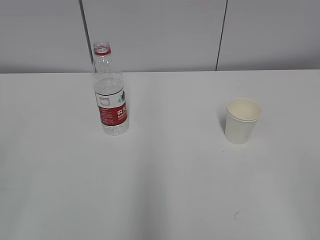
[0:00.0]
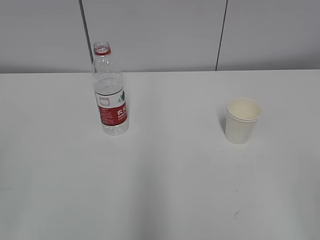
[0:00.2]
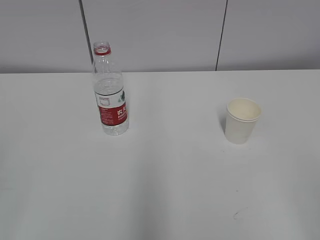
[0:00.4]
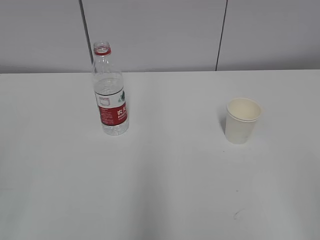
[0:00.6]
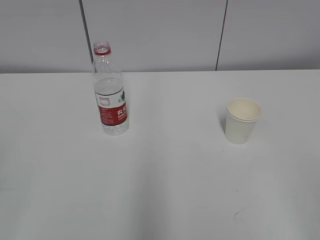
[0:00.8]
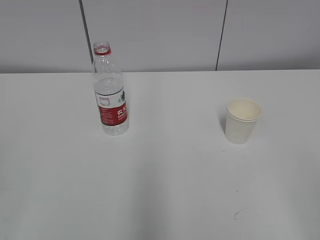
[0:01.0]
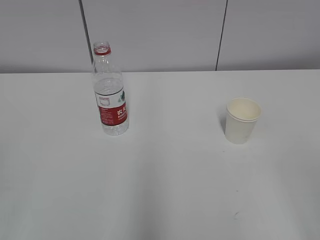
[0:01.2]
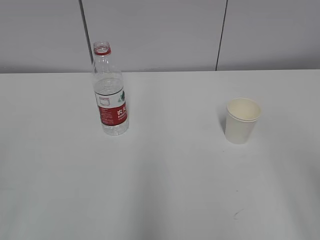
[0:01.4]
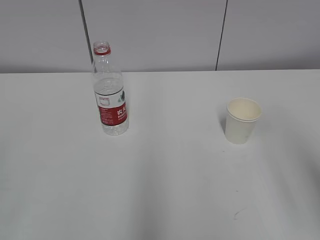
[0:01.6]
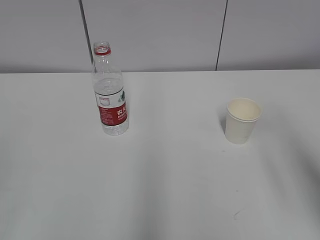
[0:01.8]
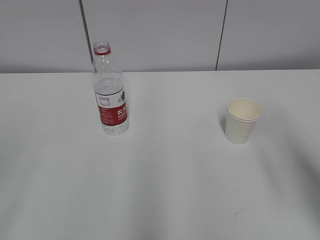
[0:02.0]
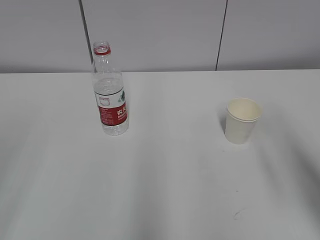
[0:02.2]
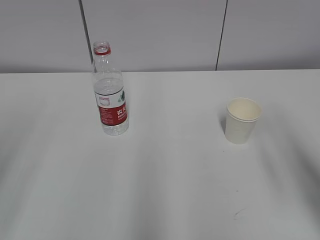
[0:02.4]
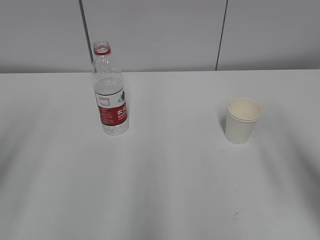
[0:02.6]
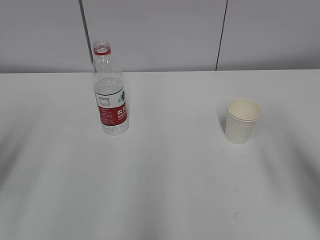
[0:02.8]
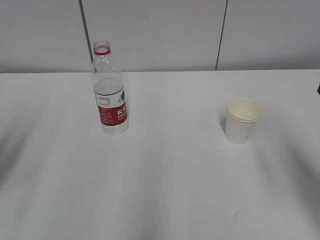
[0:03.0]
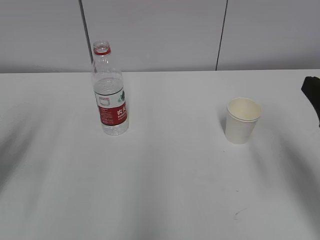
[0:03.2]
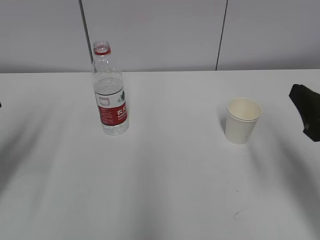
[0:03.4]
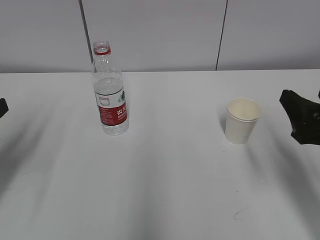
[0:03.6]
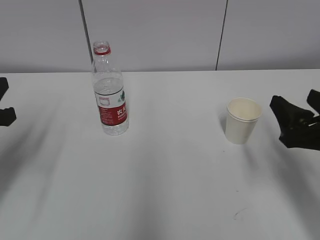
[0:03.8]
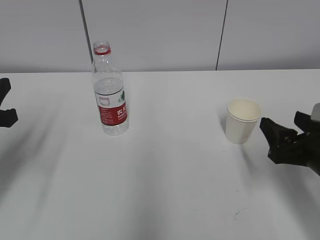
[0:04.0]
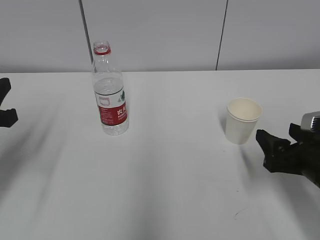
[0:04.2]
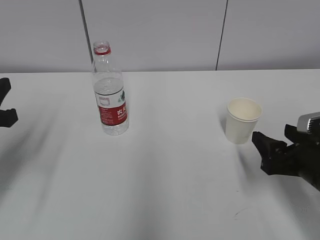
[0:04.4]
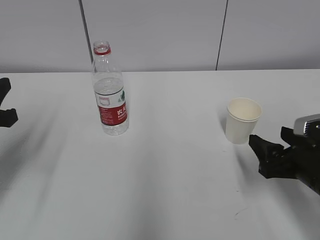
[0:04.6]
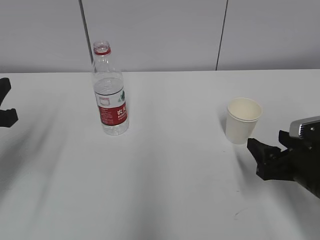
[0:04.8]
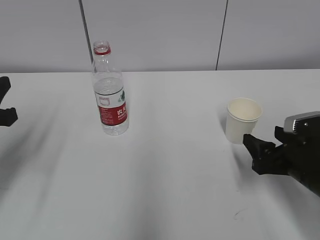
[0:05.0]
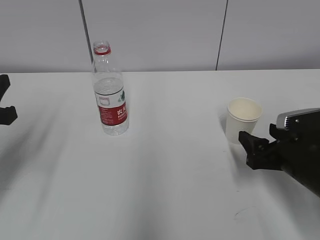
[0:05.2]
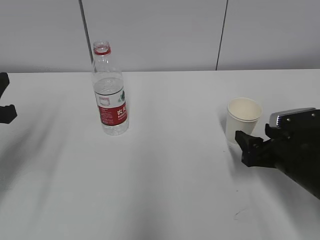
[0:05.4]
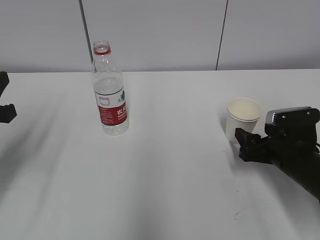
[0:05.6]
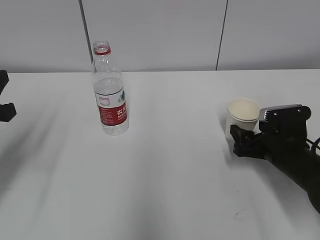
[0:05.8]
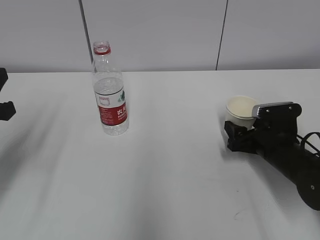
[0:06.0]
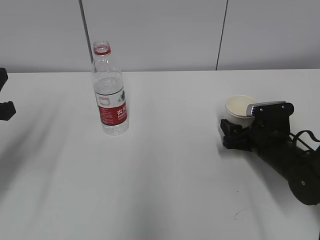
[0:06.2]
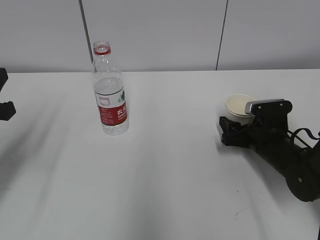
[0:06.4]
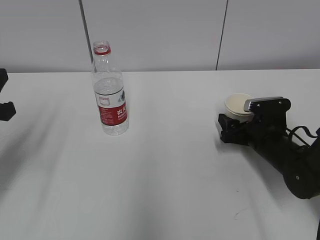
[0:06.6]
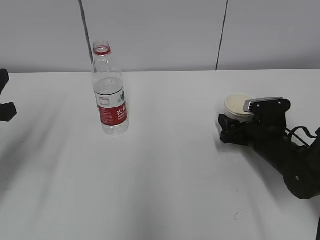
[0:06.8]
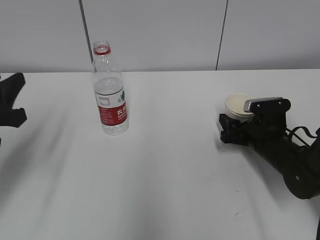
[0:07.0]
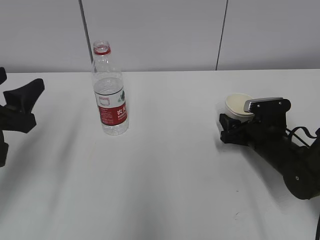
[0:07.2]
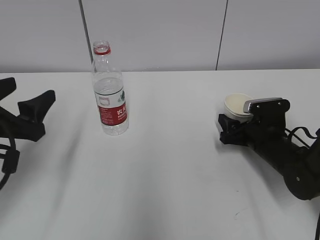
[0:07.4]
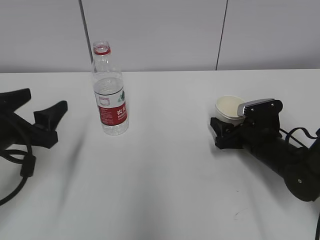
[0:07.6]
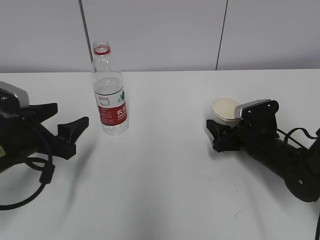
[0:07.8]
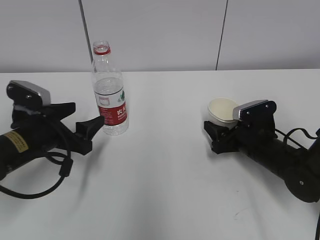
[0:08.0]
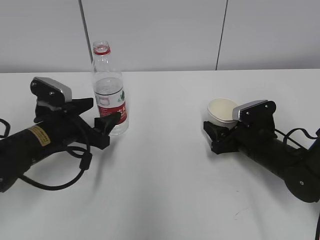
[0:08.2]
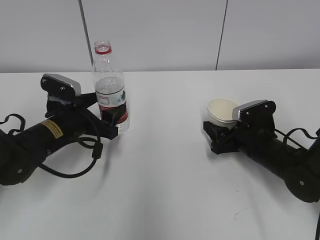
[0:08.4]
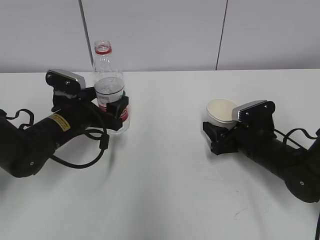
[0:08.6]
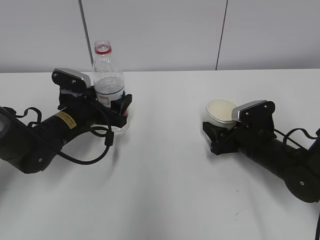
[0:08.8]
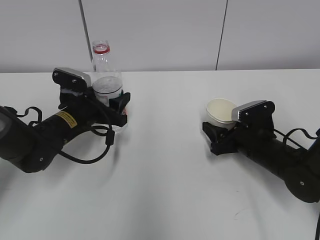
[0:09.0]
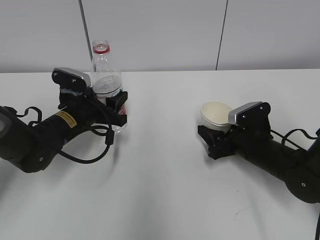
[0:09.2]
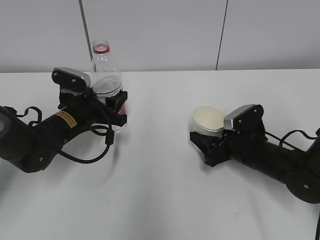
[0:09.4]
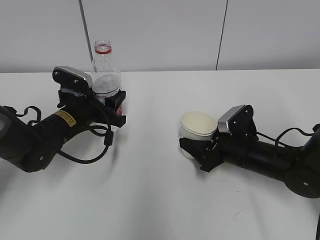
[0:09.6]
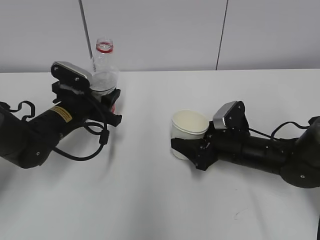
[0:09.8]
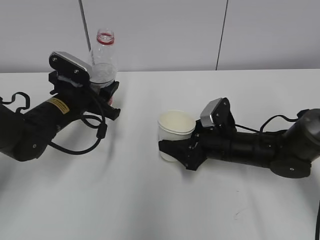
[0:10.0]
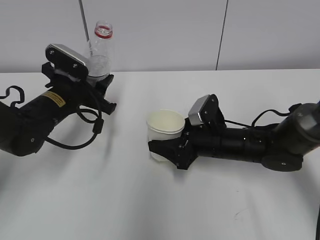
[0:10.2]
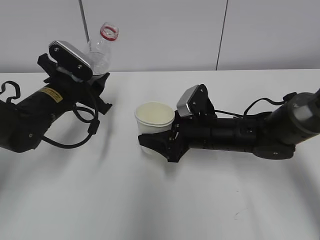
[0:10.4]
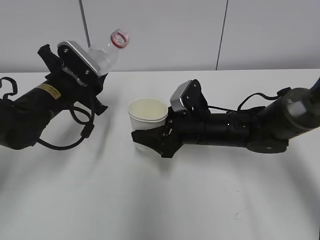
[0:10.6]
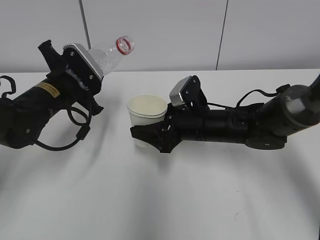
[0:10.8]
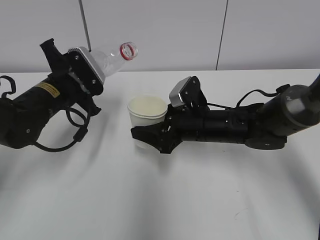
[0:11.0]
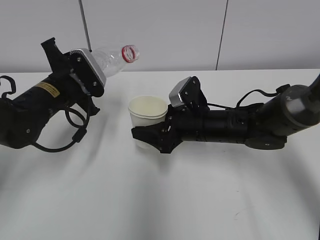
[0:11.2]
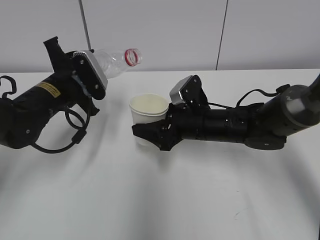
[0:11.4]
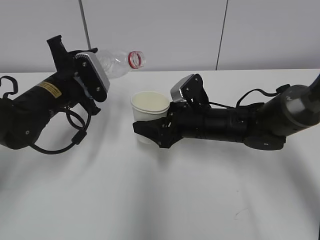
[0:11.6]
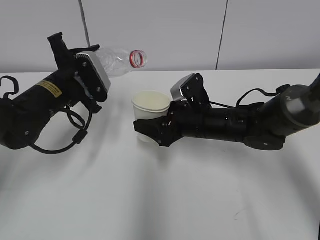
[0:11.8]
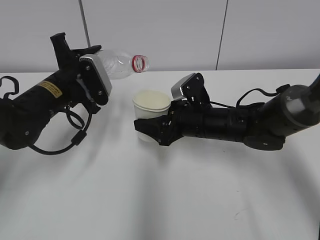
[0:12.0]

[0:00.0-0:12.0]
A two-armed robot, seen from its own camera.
Step, 0:00.0 to 0:07.8: Grab the water bottle with the left hand.
Step, 0:08.0 to 0:10.8: Lift the paper cup with the right hand.
0:01.6 to 0:03.0: The right gripper goes some 10 cm forward and downward. Meanwhile the left gripper shifts approximately 20 cm forward.
0:03.0 to 0:04.4: The left gripper goes some 10 cm downward and forward, while the right gripper goes roughly 15 cm downward and forward.
0:04.4 to 0:06.0: The right gripper moves forward and downward, about 10 cm.
0:06.0 to 0:07.6: The left gripper shifts by some 5 cm, and opens its fingers.
0:07.6 to 0:09.0: The left gripper is displaced forward, to the right and downward by approximately 15 cm.
0:09.0 to 0:10.4: The right gripper travels to the left by about 10 cm. Meanwhile the left gripper heads upward, covering approximately 5 cm, and closes up.

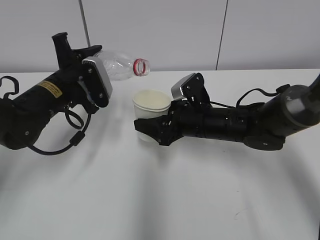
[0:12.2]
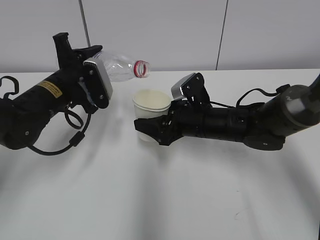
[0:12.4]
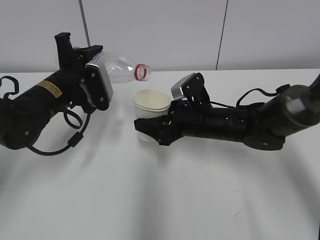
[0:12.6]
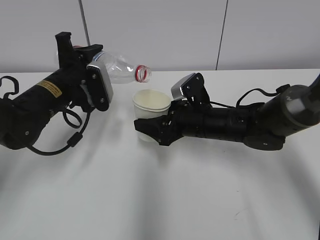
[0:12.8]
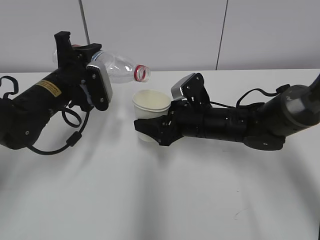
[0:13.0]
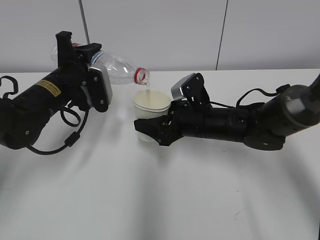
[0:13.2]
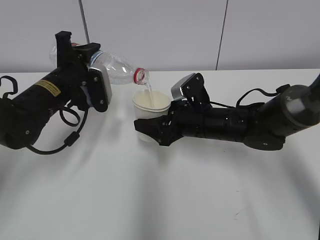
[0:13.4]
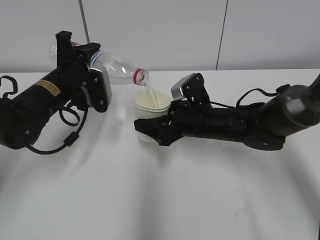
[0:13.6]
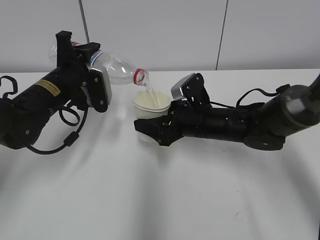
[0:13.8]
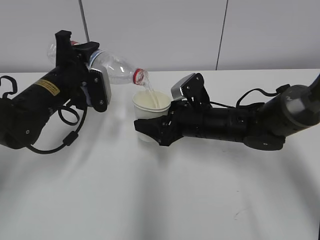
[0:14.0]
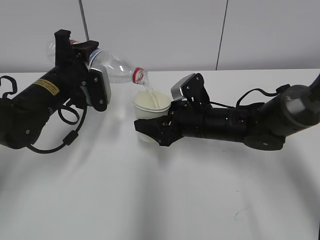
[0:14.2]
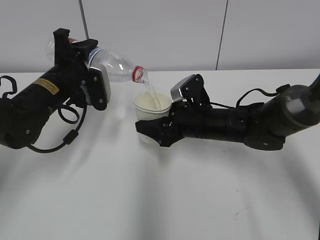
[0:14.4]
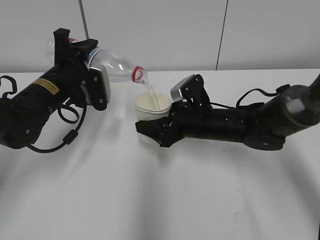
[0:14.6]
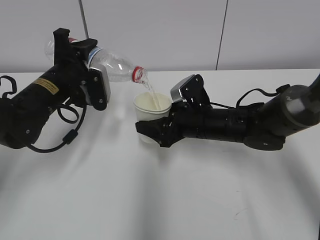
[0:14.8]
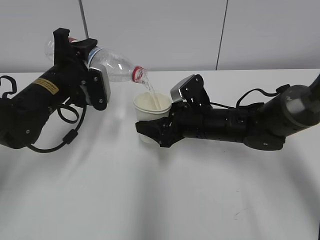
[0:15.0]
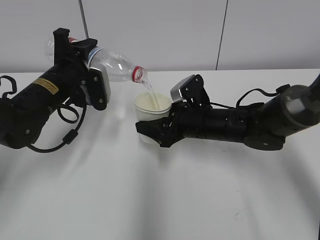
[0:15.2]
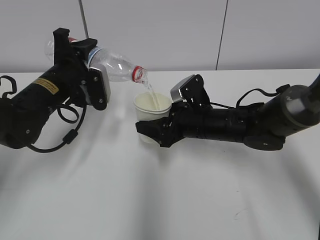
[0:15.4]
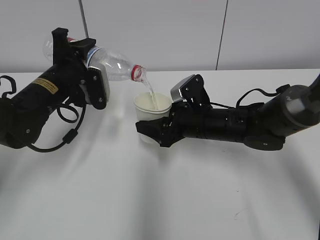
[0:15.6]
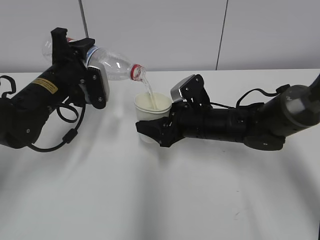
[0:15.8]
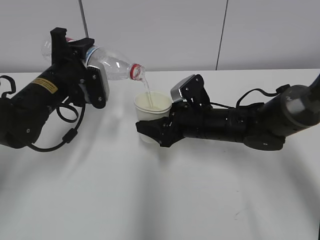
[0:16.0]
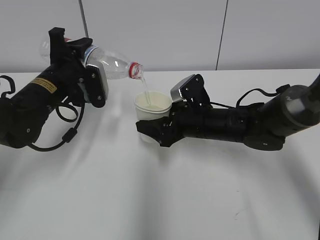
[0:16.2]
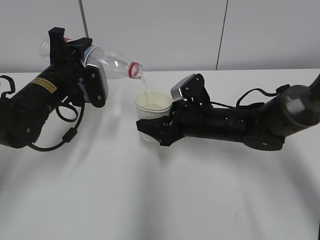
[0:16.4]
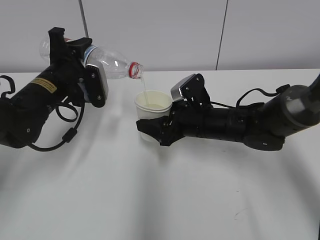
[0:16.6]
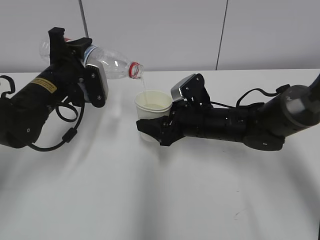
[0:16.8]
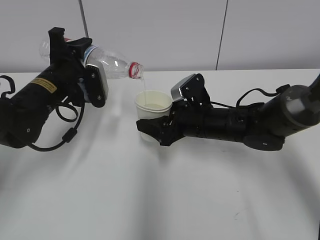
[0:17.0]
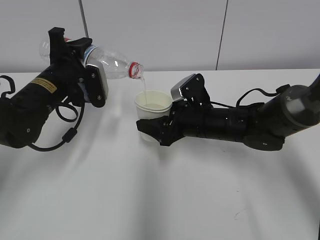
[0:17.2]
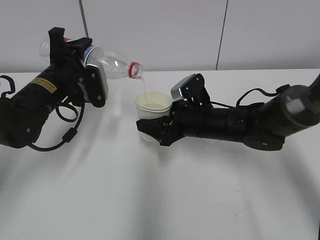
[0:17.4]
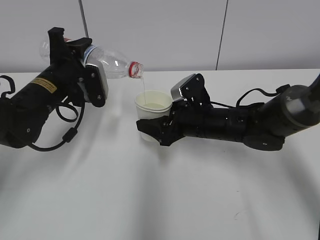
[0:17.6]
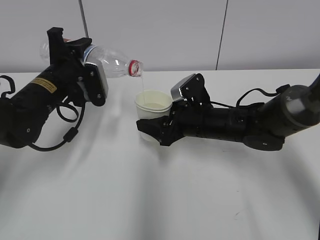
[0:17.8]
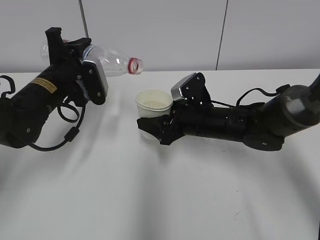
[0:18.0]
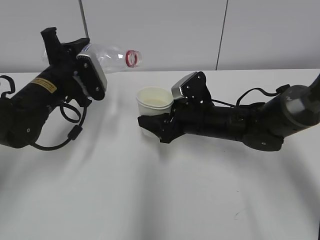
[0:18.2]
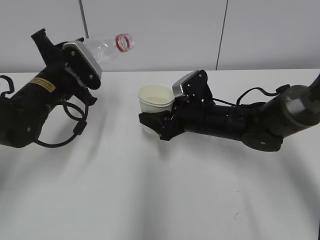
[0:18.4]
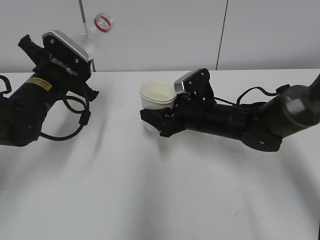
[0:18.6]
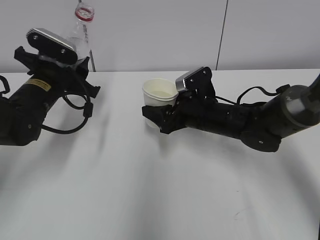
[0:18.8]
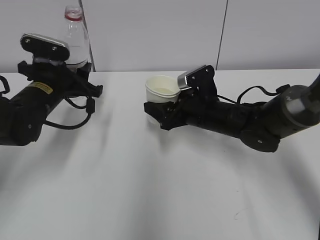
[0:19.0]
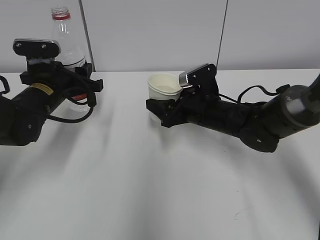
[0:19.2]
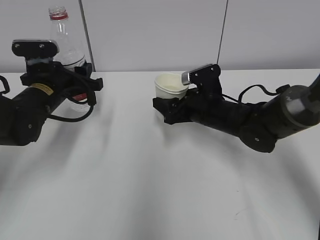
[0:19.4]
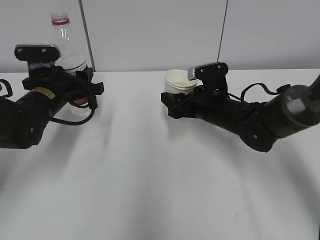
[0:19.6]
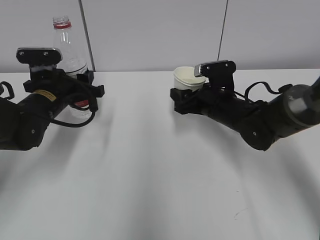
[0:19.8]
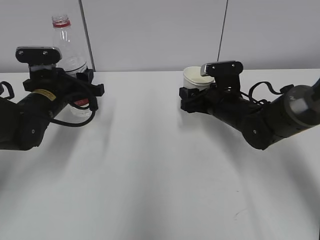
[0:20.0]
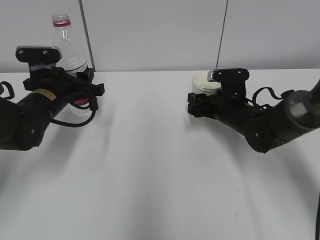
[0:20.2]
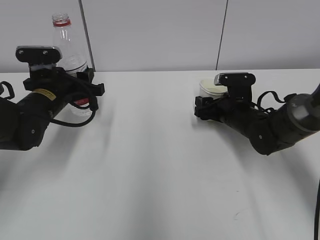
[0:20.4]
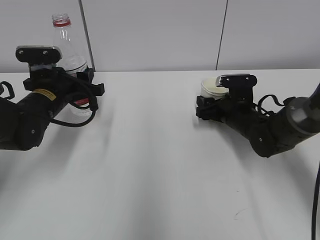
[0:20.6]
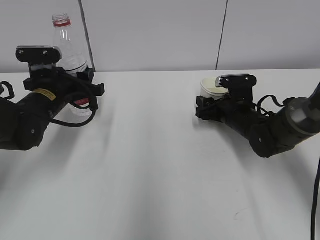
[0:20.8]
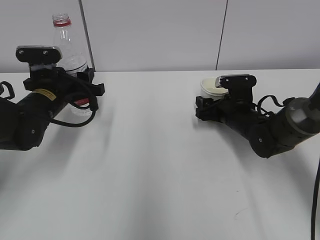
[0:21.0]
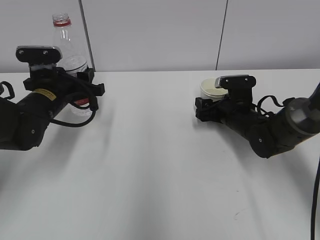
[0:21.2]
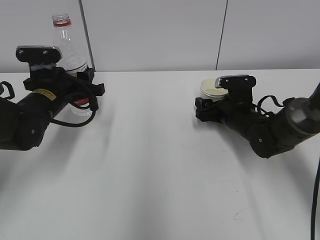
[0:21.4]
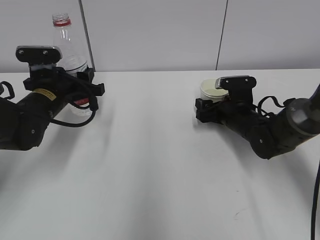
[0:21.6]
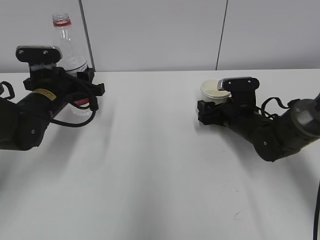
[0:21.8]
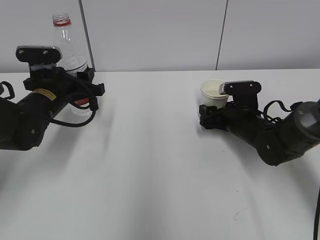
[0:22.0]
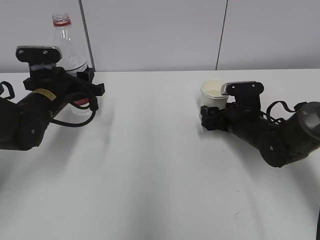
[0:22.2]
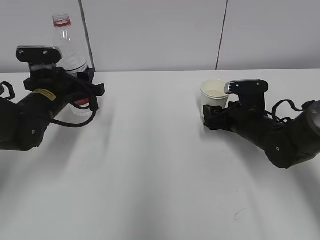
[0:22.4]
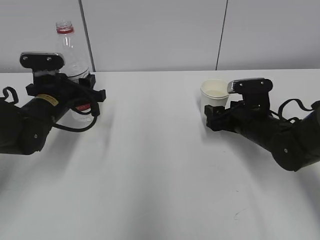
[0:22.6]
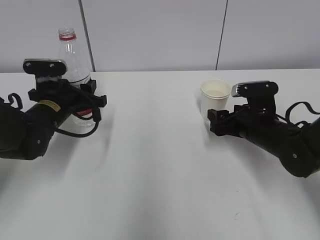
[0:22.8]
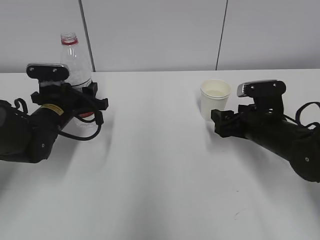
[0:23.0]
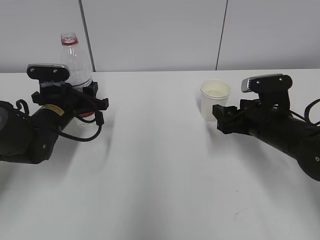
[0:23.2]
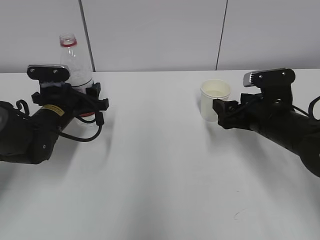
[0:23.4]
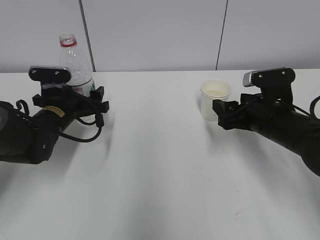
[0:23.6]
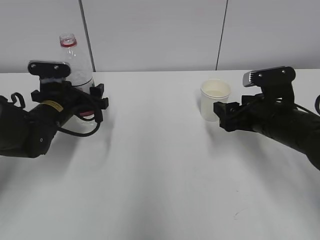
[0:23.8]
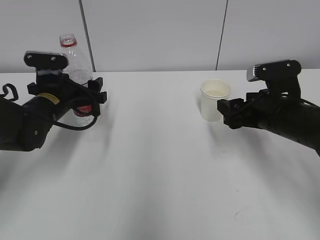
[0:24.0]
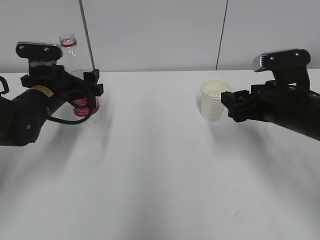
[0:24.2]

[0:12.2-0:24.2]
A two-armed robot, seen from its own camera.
Step, 0:12.2 to 0:14.8: Fill water with the right hand.
Step, 0:12.2 to 0:14.8: Pour water with the left hand.
Step, 0:15.0 to 0:16.0: Collect water with the left hand.
Step, 0:16.2 to 0:18.0: Place the paper cup with the right hand.
Step, 0:18.2 to 0:19.4: Place the water bottle with the left hand.
0:12.2 to 0:13.8: There are only small adjustments of the grippers.
0:13.8 to 0:16.6: Both grippers stay about where they are.
0:16.6 to 0:18.2: The grippers stay close to where they were, moving slightly.
0:19.8 to 0:21.2: The right gripper shifts by some 5 cm.
0:21.2 to 0:22.6: The right gripper moves about 5 cm.
0:22.6 to 0:24.2: The left gripper opens up. The right gripper goes roughly 10 cm upward and backward.
